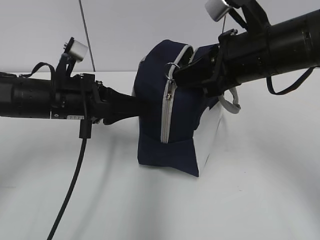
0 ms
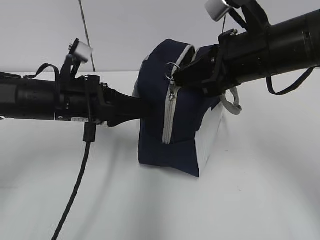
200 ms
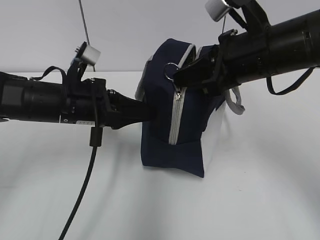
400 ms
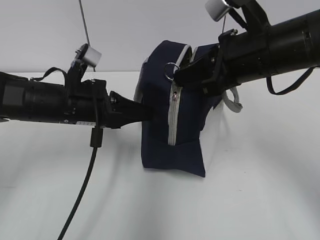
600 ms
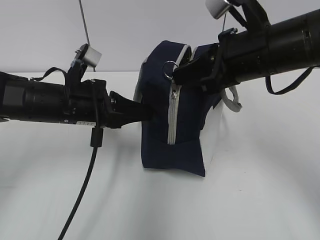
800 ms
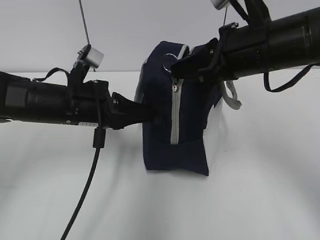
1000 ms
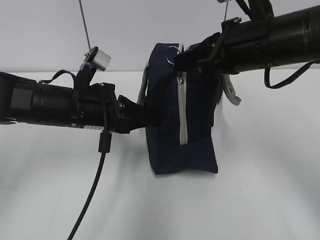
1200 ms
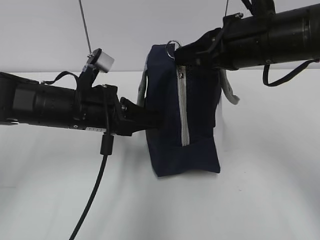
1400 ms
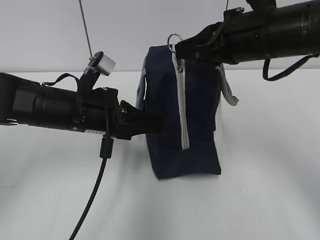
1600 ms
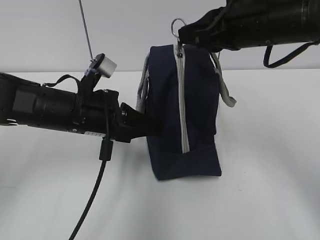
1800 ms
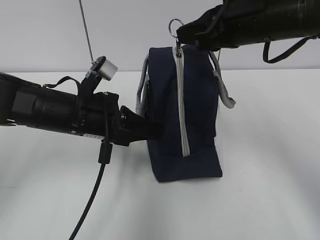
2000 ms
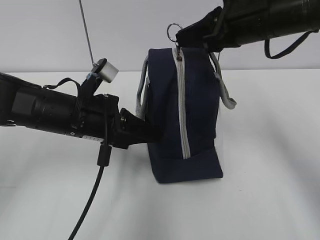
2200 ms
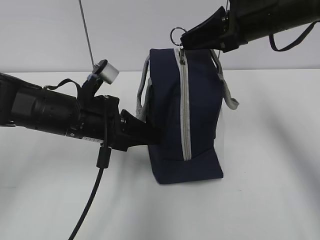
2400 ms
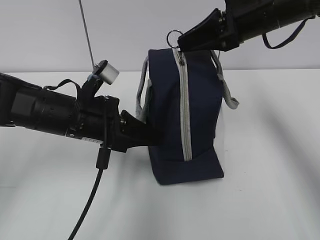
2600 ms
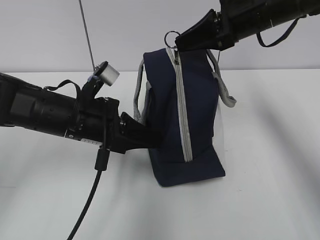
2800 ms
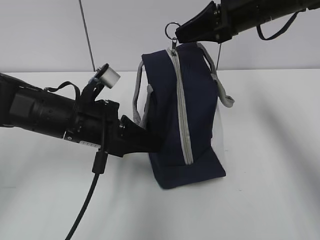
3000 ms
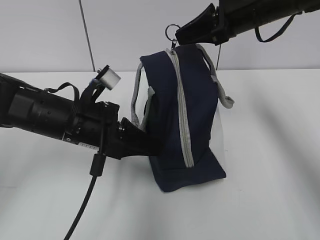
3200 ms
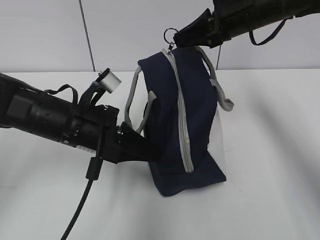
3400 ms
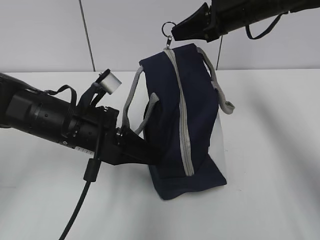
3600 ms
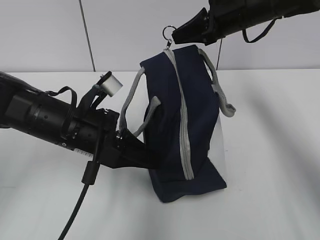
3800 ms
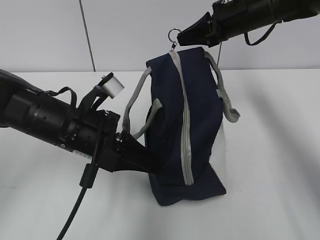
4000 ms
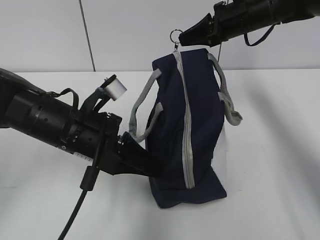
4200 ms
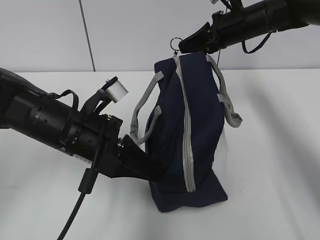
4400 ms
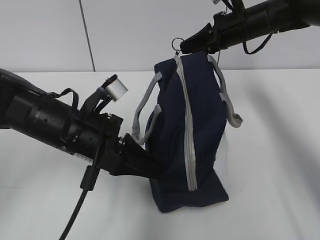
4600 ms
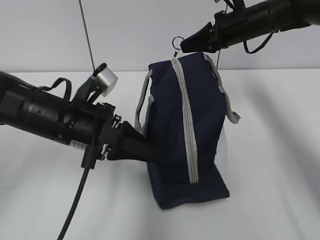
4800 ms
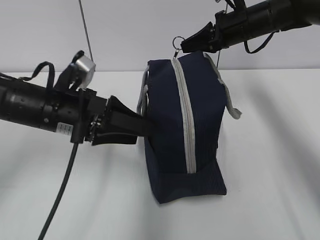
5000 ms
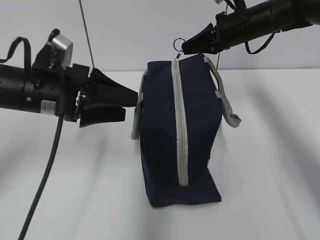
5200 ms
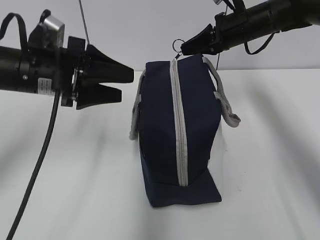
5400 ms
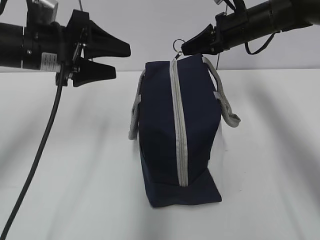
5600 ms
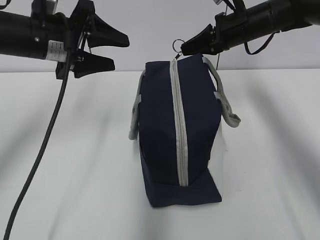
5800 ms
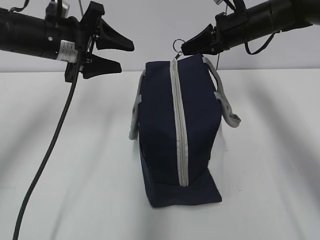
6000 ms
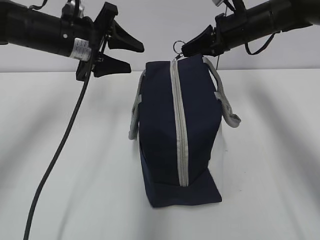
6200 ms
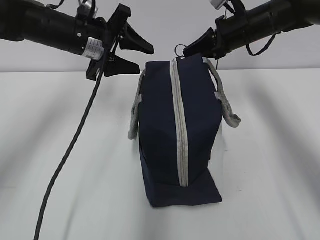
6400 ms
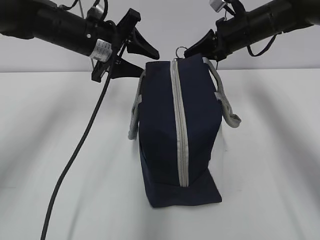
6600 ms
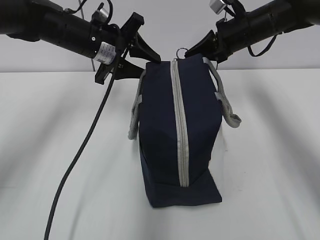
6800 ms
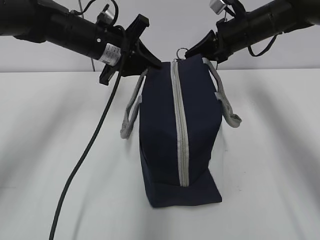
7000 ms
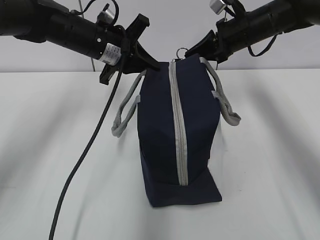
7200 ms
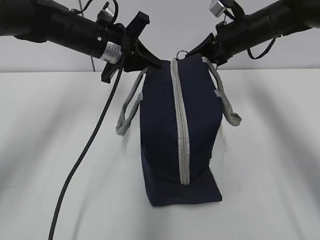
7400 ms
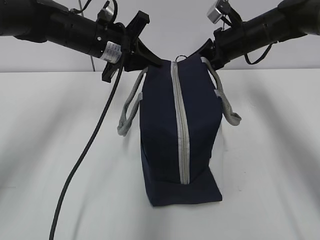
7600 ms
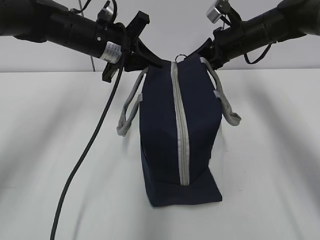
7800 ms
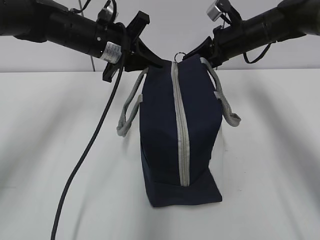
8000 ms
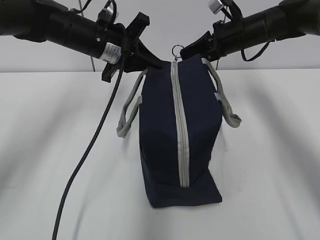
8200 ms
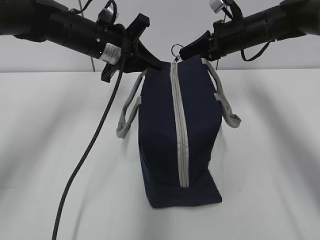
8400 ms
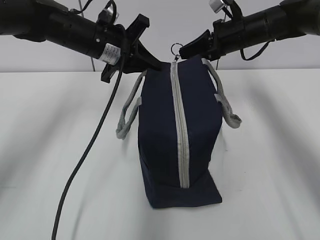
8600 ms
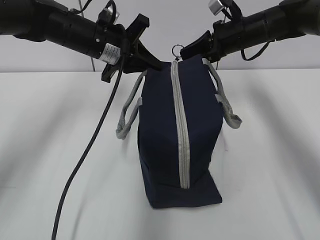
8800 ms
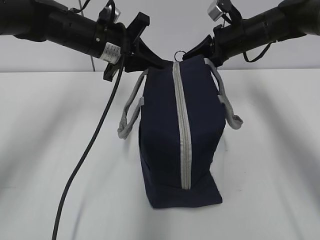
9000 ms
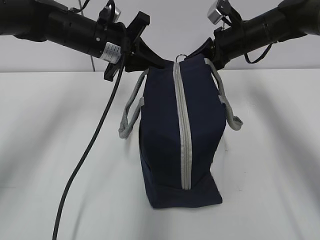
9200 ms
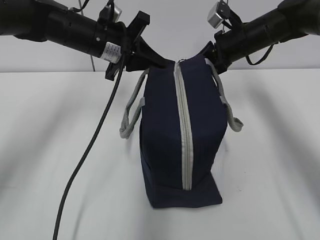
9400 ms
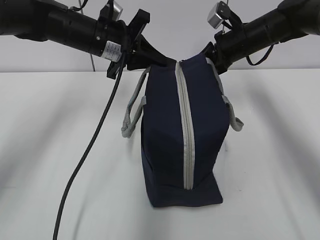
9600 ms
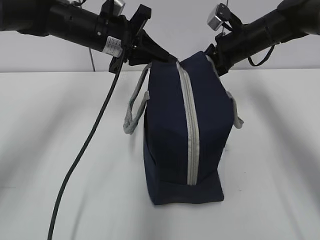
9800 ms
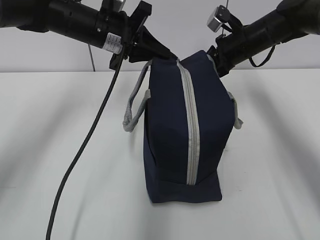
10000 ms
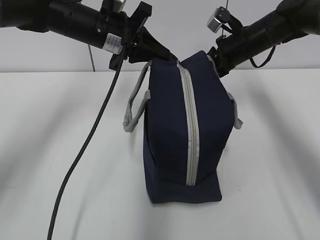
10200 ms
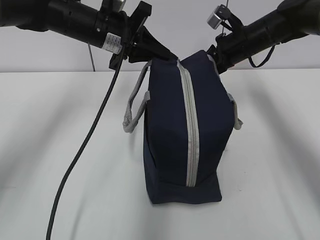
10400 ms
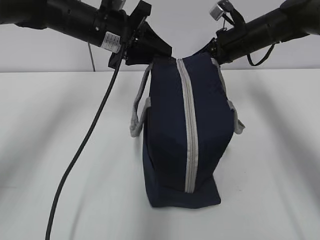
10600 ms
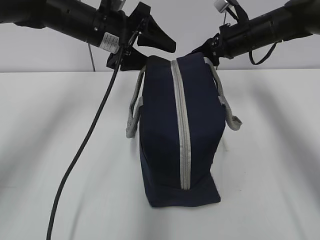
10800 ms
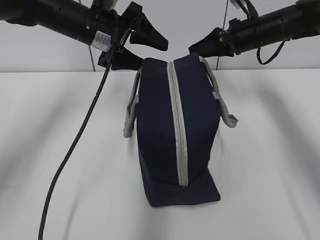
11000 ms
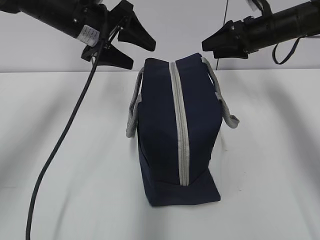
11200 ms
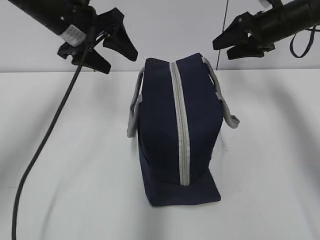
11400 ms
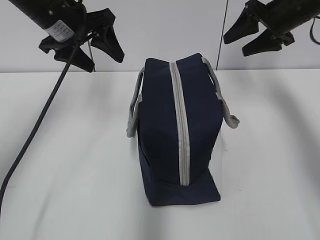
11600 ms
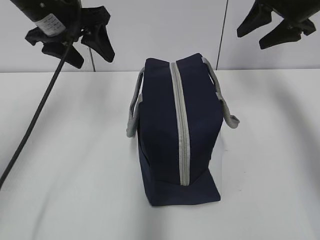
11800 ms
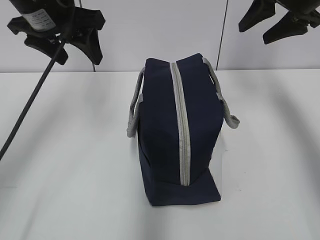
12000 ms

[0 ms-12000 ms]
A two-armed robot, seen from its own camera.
0 ms to 1600 ms: The left gripper closes.
1600 ms to 3000 ms: The right gripper heads forward, covering roughly 10 cm.
3000 ms to 4400 ms: The right gripper moves forward and downward, about 10 cm.
4400 ms to 6000 ms: The left gripper shifts some 15 cm forward, upward and to the left, and opens its fingers.
6000 ms to 7600 ms: The left gripper moves to the right, about 5 cm, and closes.
7600 ms to 10400 ms: There are only small adjustments of the grippers.
10400 ms to 12000 ms: The right gripper shifts about 15 cm upward, backward and to the right, and opens, while the left gripper travels upward, to the left and backward by about 10 cm, and opens up.

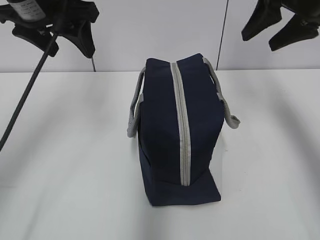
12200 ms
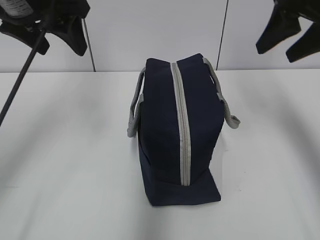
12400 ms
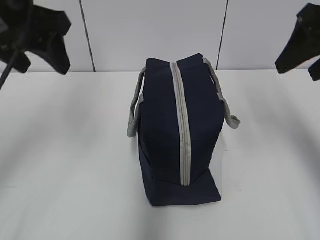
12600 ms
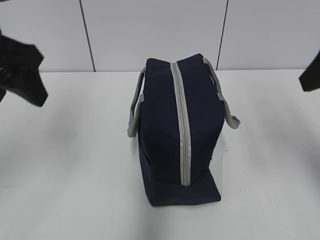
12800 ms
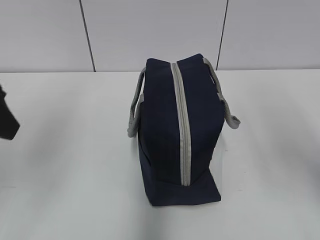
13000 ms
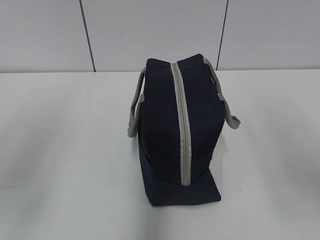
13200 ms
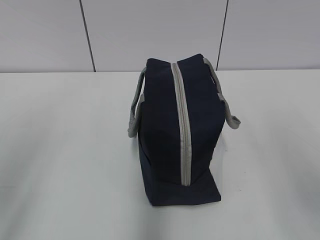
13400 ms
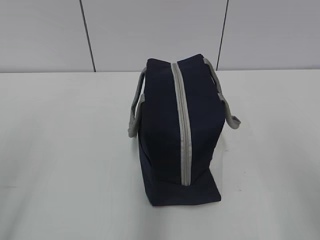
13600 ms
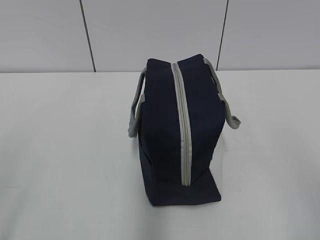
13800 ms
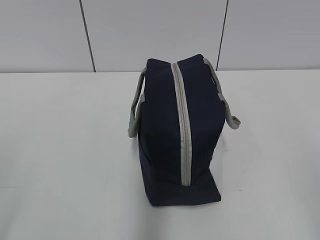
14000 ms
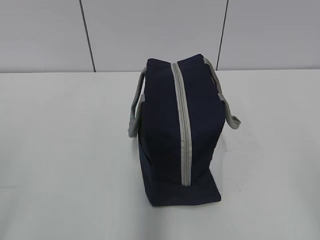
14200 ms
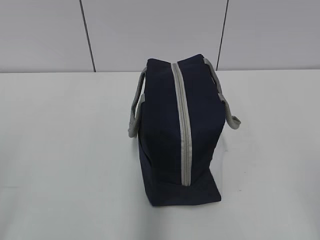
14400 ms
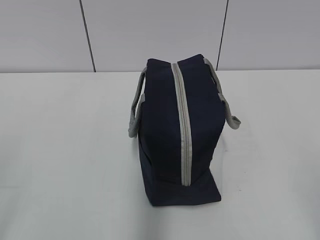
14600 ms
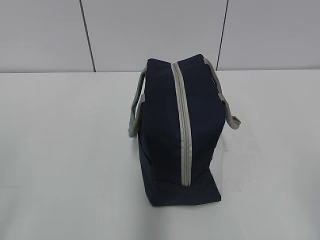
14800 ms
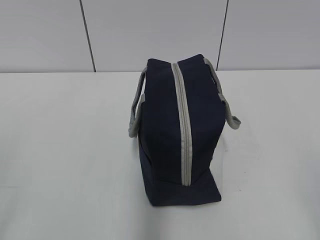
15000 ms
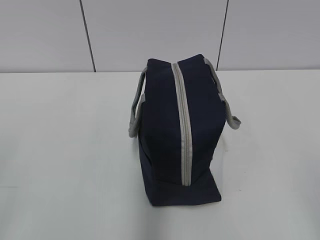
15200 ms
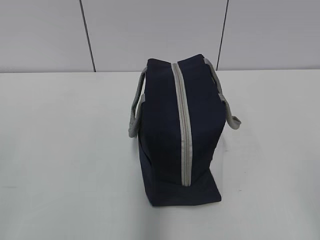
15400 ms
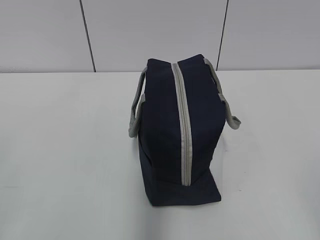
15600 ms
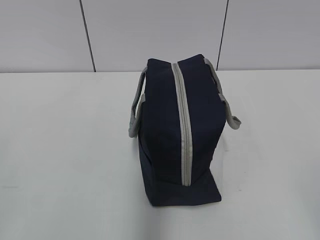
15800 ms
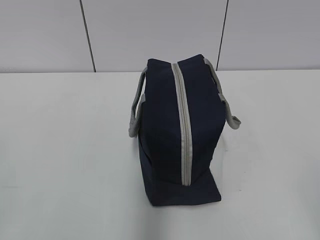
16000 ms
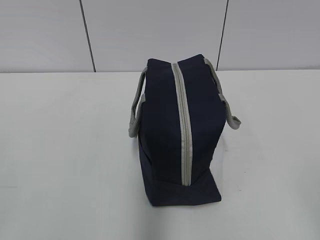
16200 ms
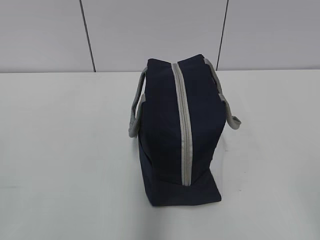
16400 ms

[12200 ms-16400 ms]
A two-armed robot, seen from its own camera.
12200 ms to 13600 ms: The left gripper goes some 30 cm backward and to the left. Meanwhile the right gripper shifts roughly 30 cm backward.
